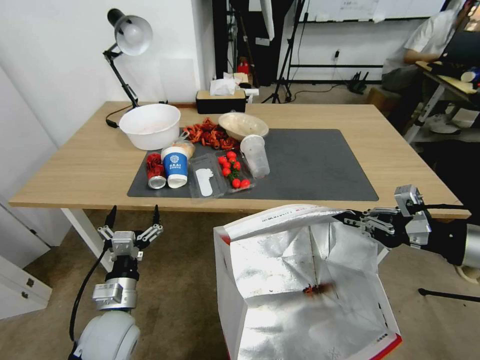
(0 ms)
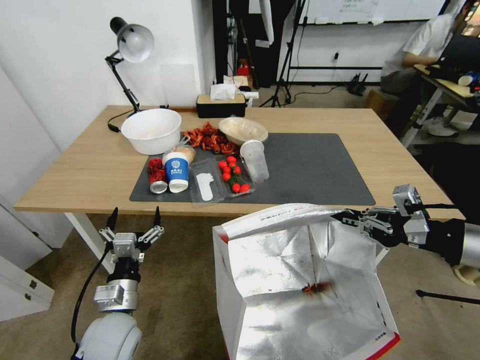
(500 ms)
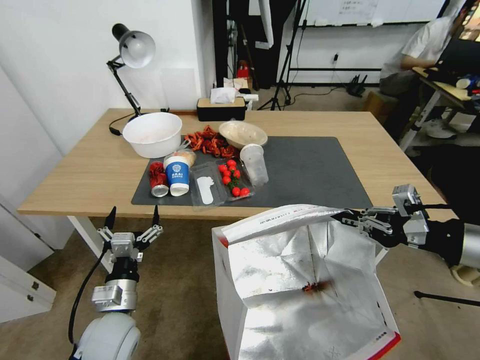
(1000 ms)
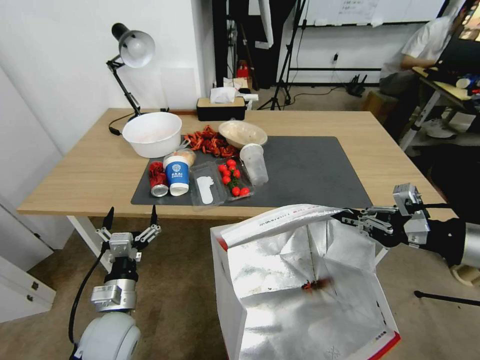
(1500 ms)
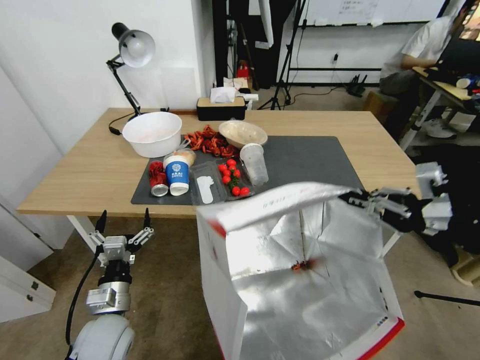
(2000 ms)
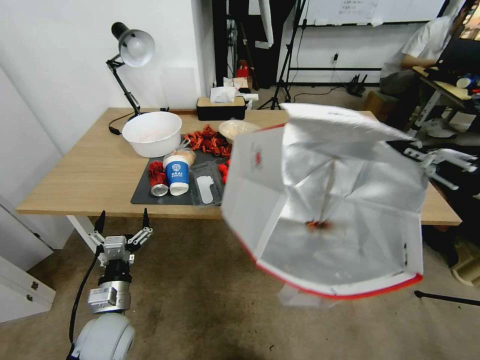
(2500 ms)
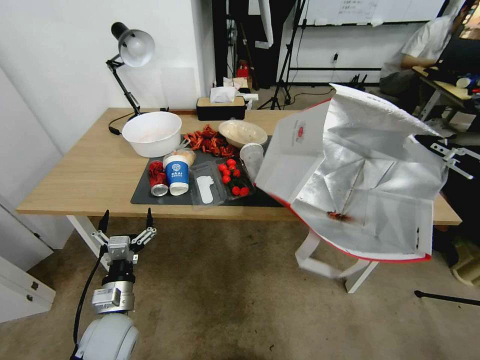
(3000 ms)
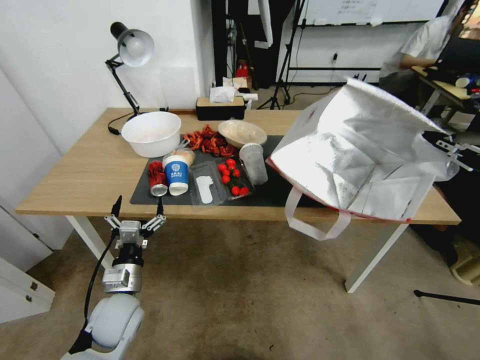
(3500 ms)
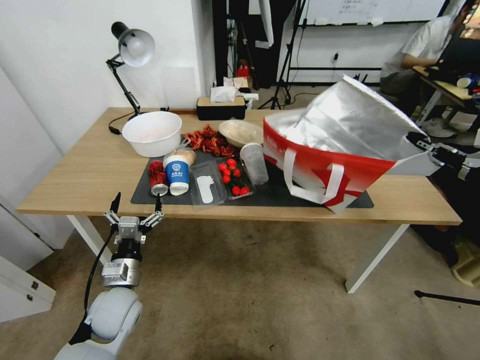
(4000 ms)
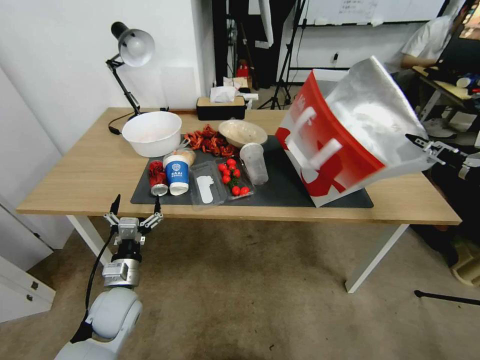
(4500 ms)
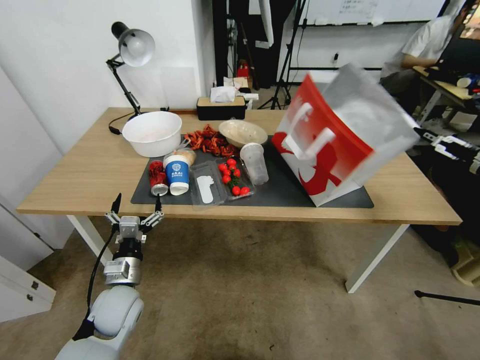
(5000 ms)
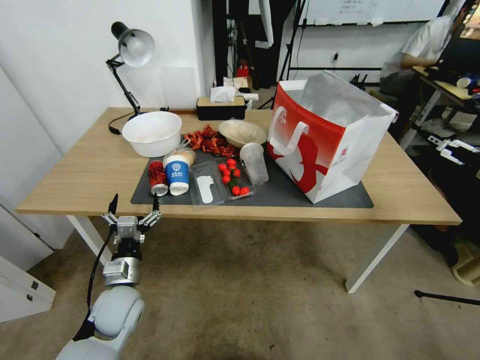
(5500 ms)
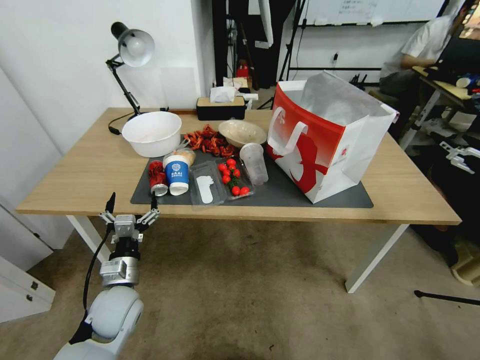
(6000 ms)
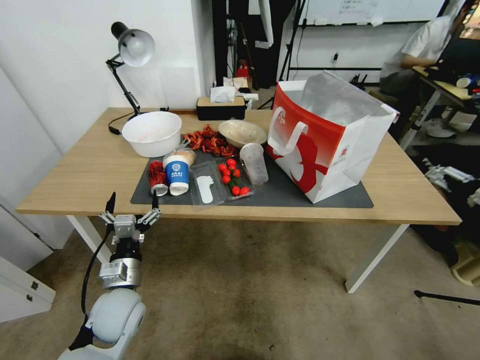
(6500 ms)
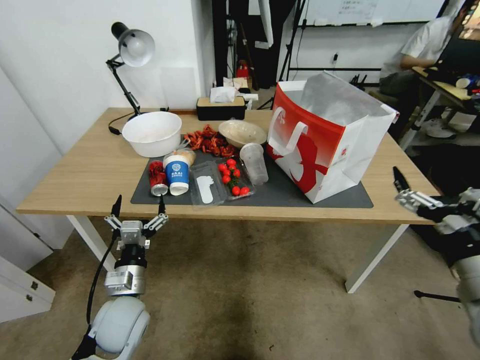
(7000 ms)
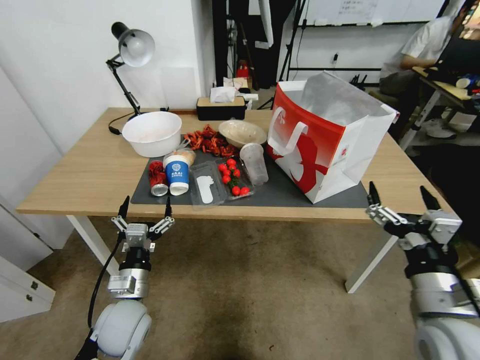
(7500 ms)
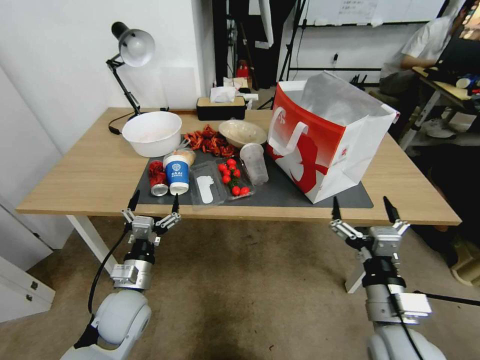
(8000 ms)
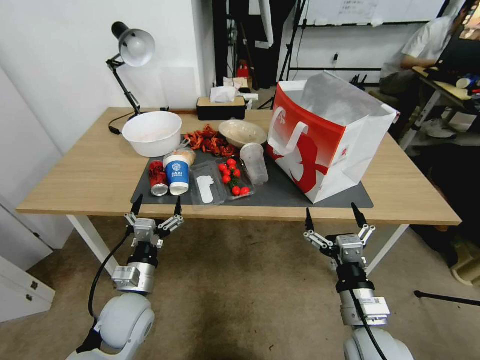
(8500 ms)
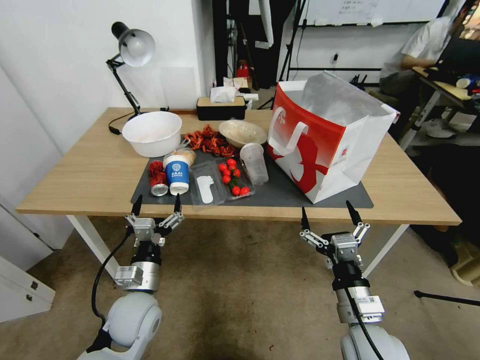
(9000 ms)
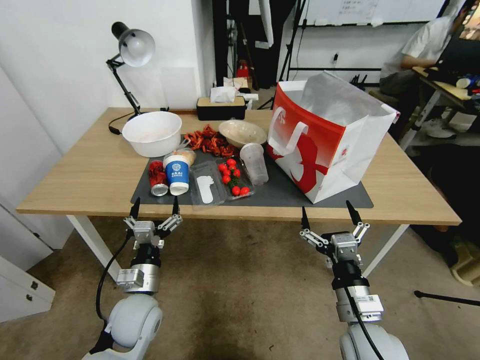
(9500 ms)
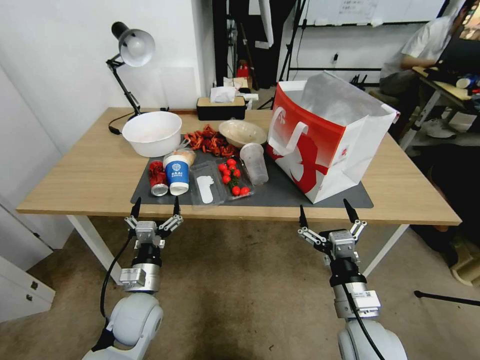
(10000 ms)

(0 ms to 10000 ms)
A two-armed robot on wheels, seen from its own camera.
Task of the whole recording: Pick up the food delivery bag from the floor and place it on the table.
2000 ms - 4000 ms: The left gripper is displaced forward by some 5 cm. The right gripper heads to the right and forward, covering roughly 15 cm.
4000 ms - 6000 ms: The right gripper opens.
6000 ms - 8000 ms: The right gripper heads to the left and downward, covering roughly 30 cm.
8000 ms - 10000 ms: The right gripper ends up approximately 5 cm from where it was.

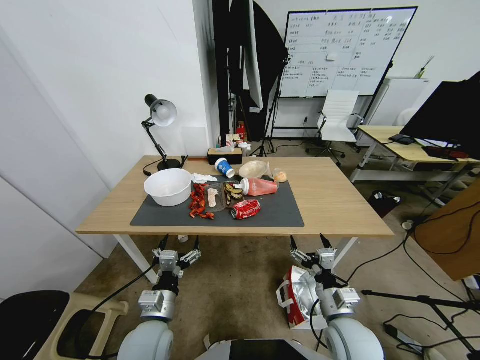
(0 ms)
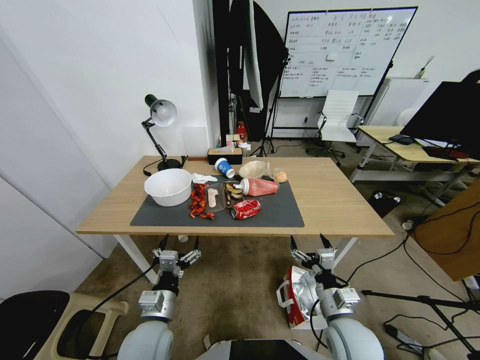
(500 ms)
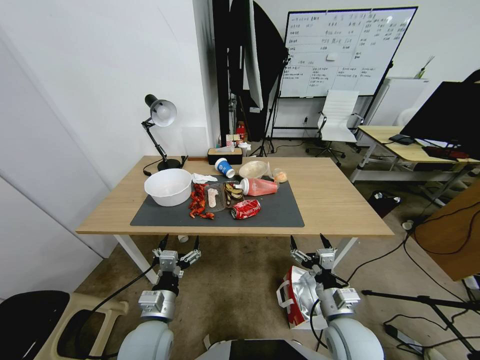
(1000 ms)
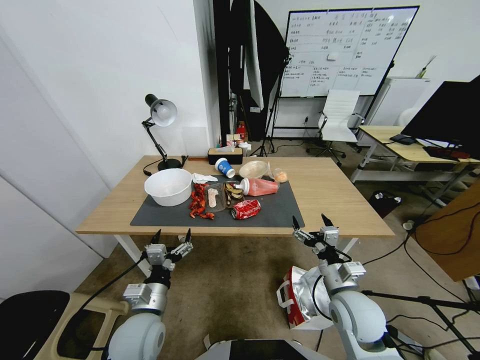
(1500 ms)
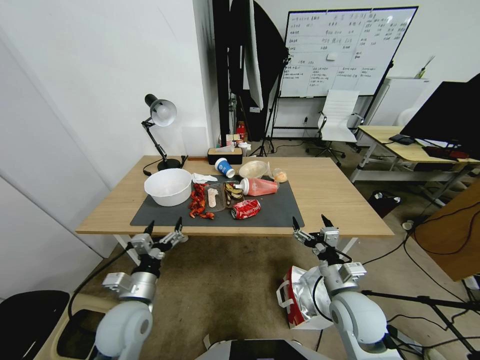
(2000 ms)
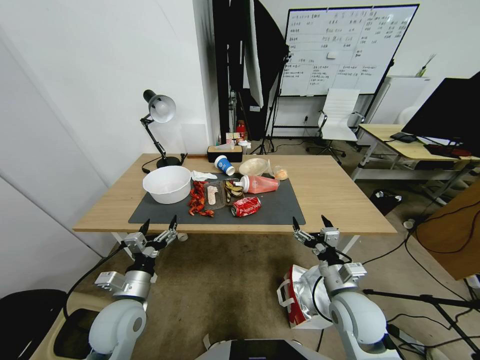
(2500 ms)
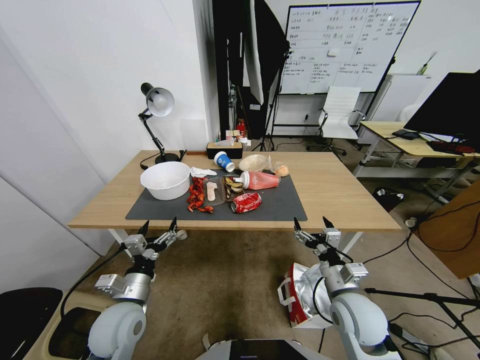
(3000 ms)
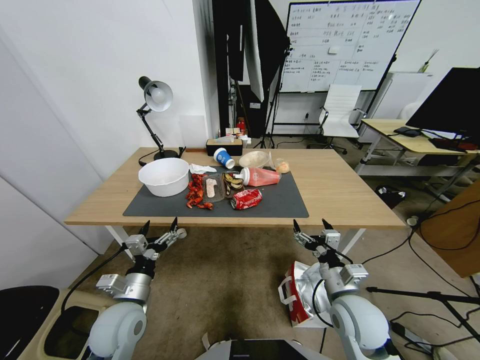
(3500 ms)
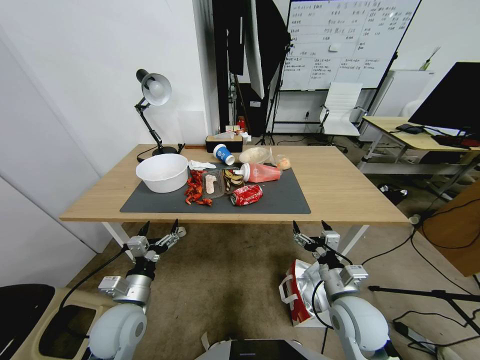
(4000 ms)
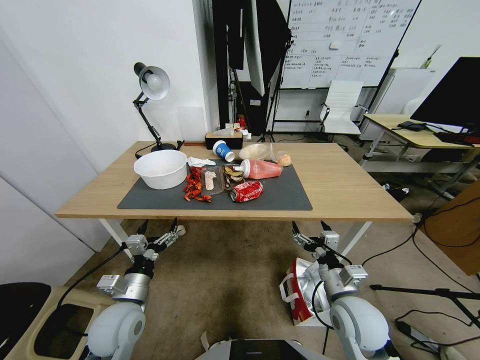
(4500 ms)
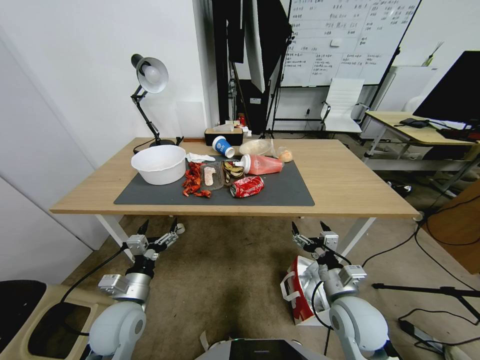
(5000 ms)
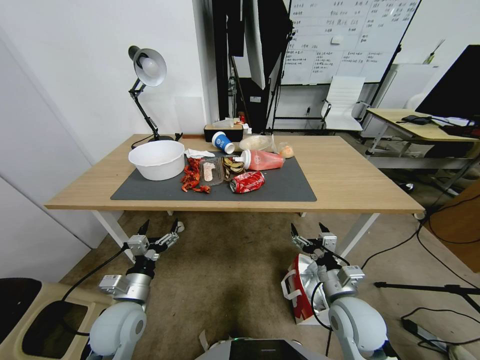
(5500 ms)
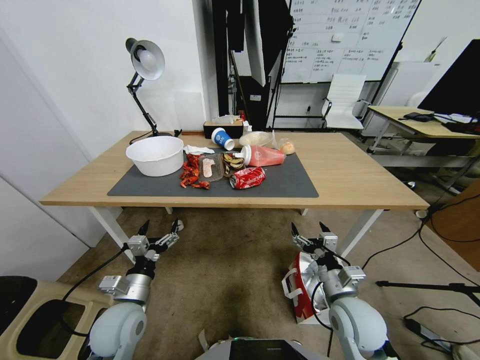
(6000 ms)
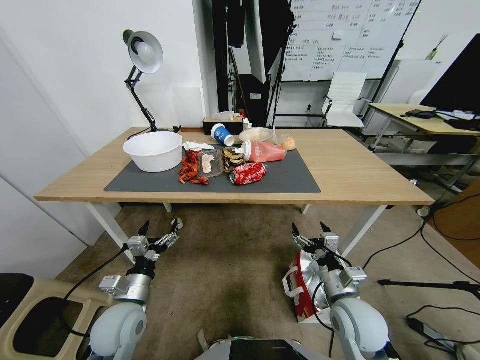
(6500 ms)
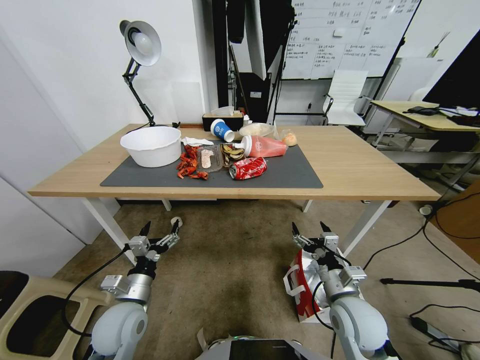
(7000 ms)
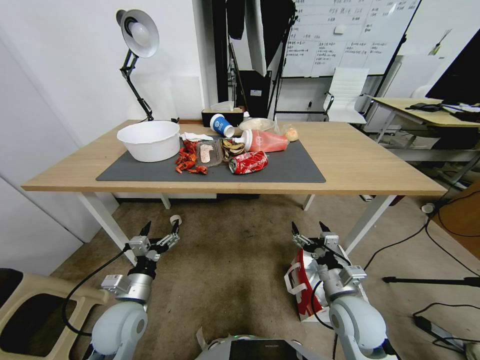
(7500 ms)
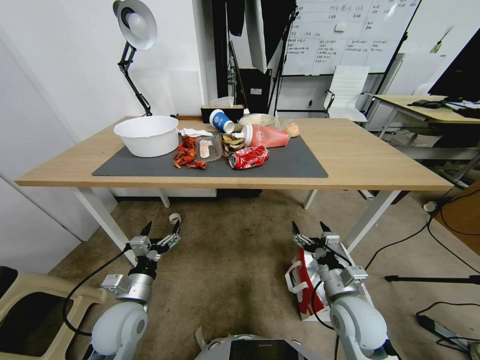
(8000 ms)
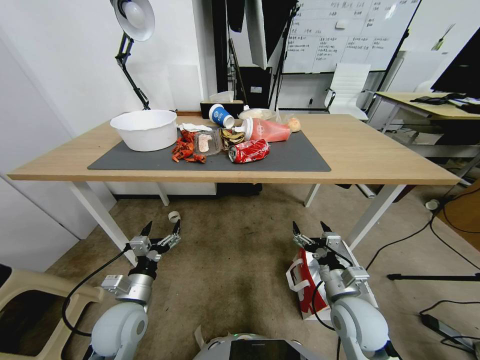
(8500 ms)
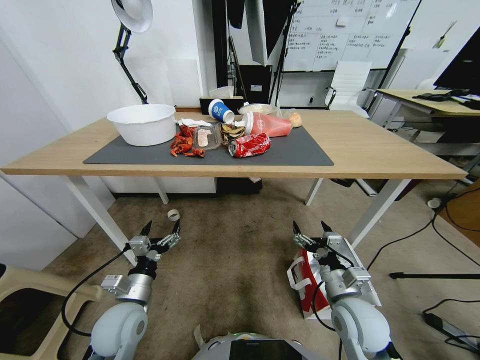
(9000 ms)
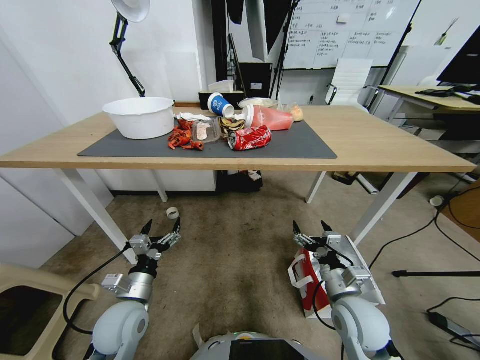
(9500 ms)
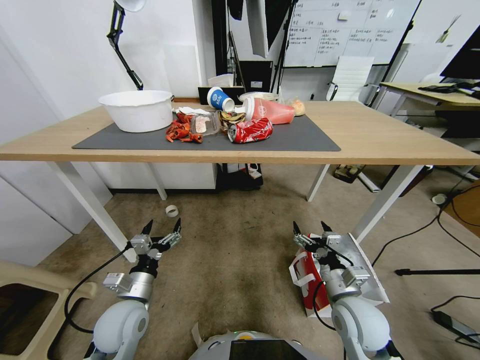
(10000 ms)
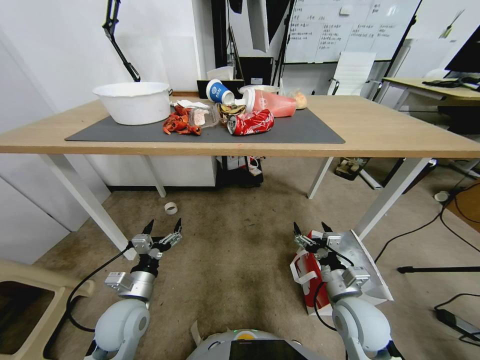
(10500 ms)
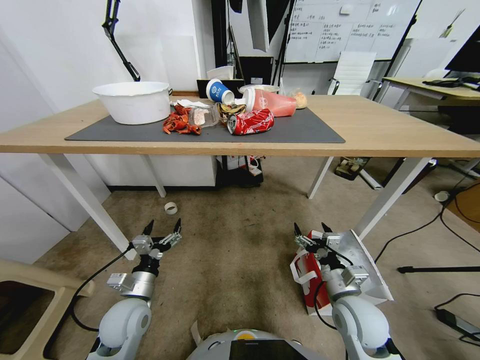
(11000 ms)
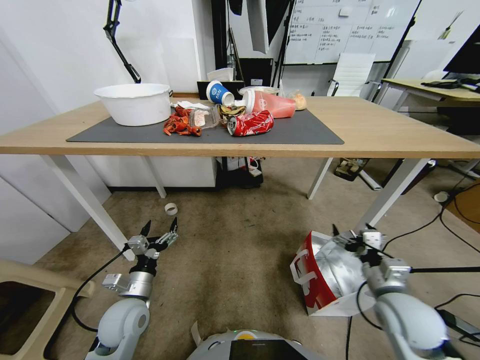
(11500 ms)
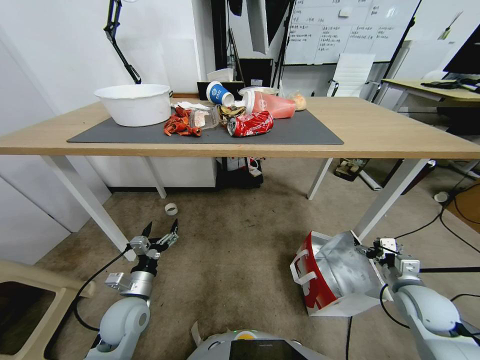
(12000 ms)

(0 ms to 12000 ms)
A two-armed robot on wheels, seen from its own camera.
Task of the whole recording: Pick up the food delivery bag from the floor and place it on the table.
10000 ms - 12000 ms: The right gripper travels to the right by some 20 cm.

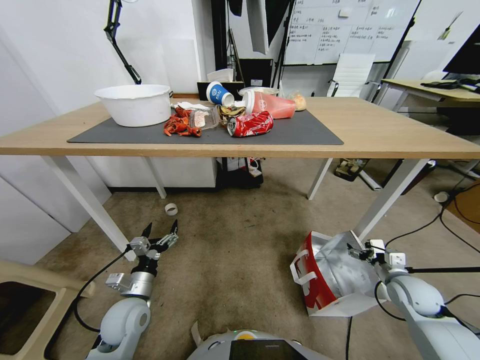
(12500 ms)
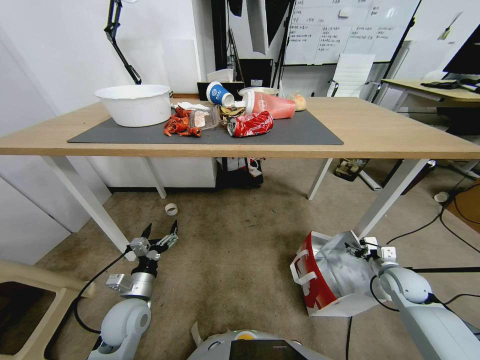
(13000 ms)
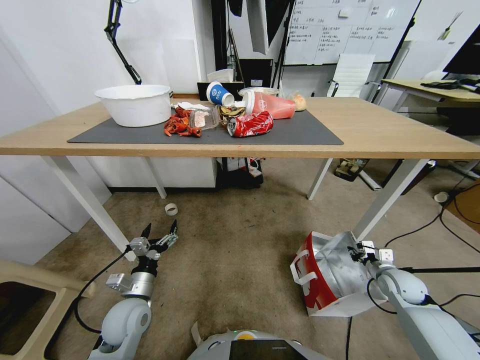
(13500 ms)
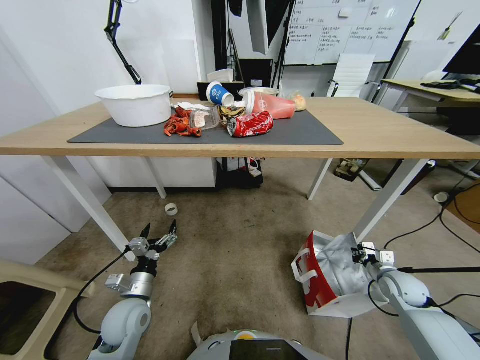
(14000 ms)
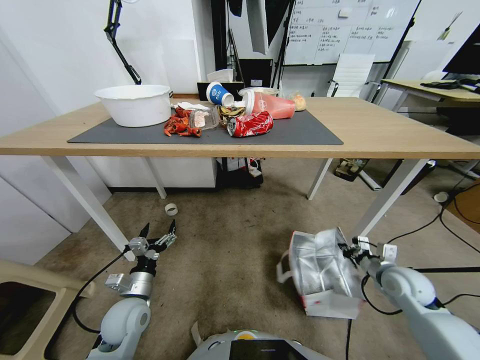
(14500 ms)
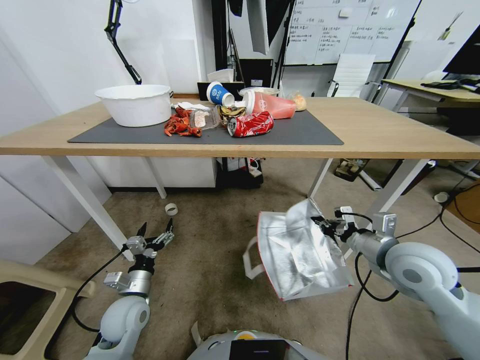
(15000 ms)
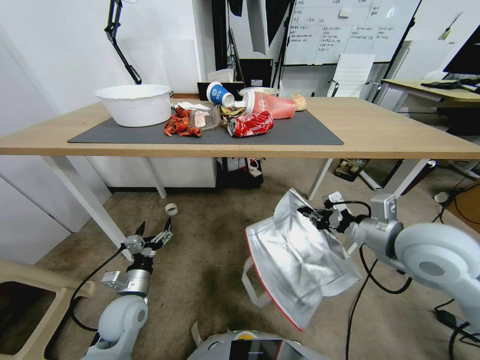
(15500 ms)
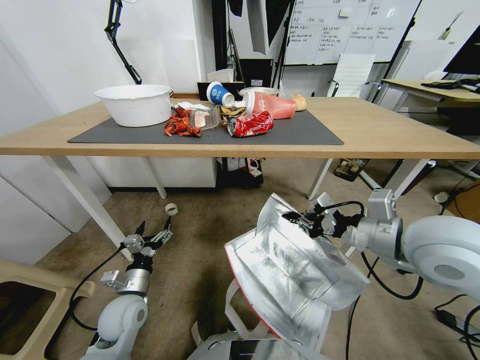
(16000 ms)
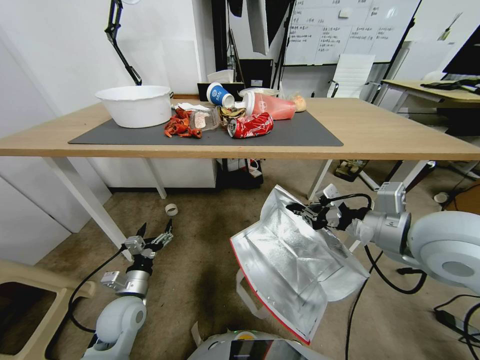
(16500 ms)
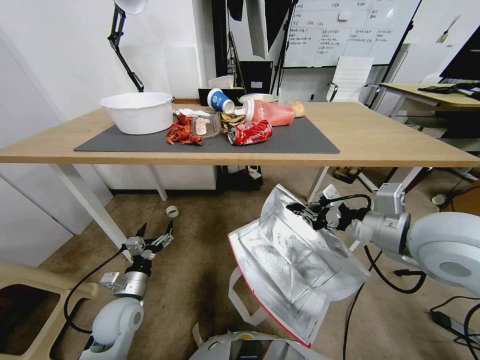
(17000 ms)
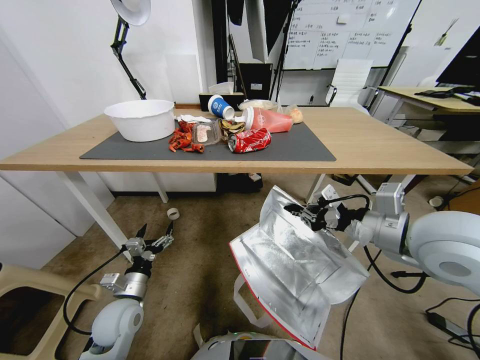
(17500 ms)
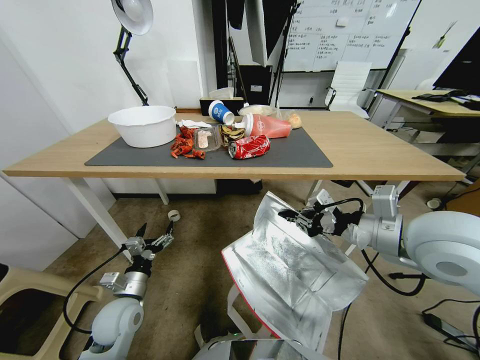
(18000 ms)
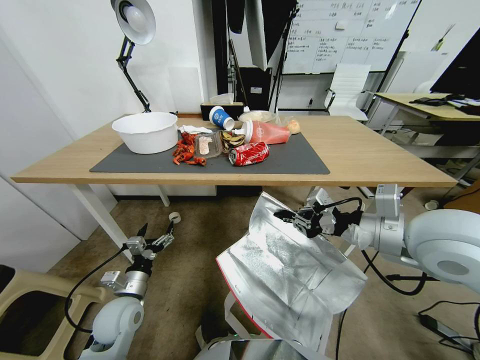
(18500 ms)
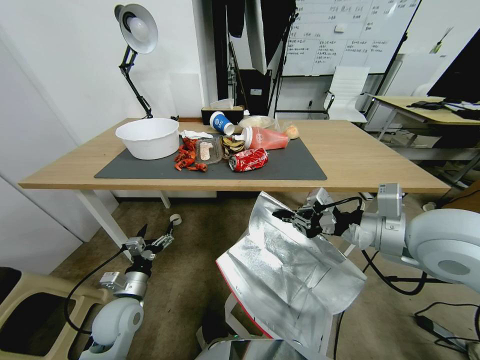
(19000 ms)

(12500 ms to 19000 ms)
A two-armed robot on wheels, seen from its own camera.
Task of the whole recording: Pick up the food delivery bag from the floor and place it on the table.
12500 ms - 14500 ms: The right gripper heads upward and to the left, covering about 10 cm, and closes its fingers.
14500 ms - 17000 ms: The right gripper shifts approximately 20 cm upward and to the left.
